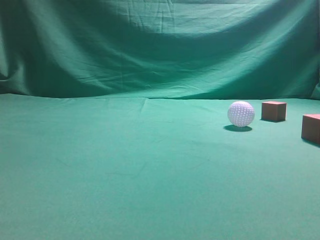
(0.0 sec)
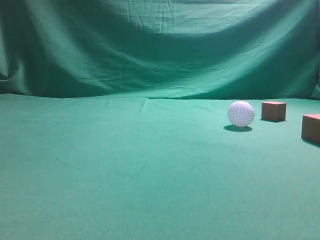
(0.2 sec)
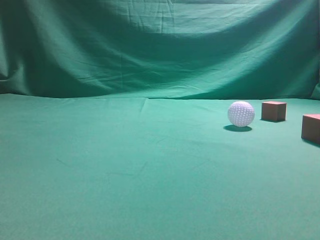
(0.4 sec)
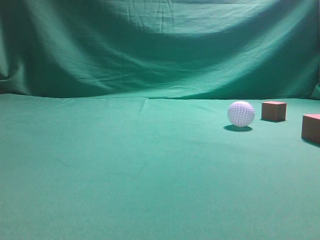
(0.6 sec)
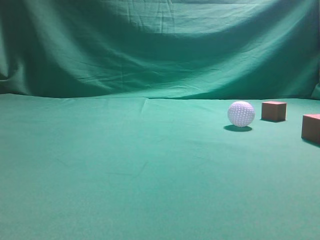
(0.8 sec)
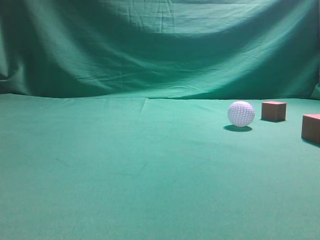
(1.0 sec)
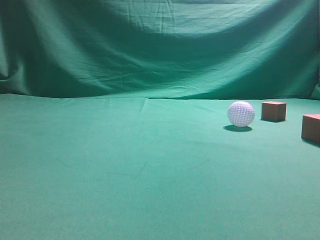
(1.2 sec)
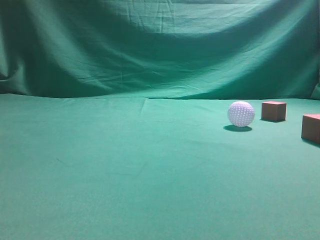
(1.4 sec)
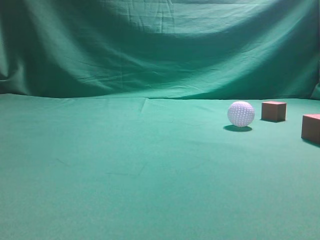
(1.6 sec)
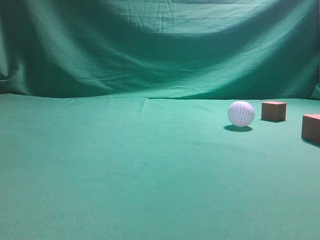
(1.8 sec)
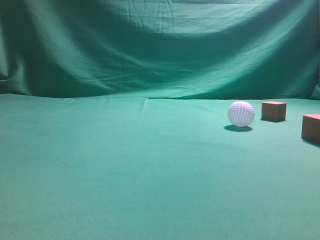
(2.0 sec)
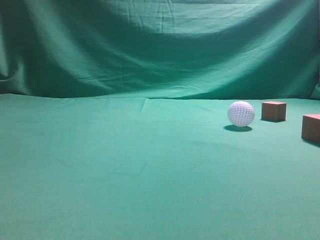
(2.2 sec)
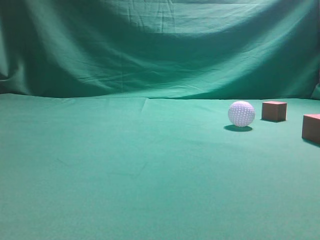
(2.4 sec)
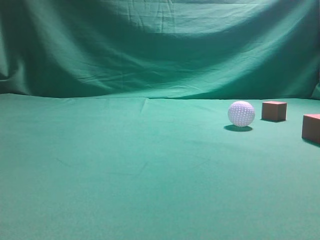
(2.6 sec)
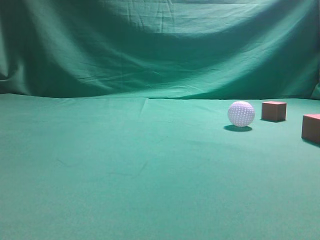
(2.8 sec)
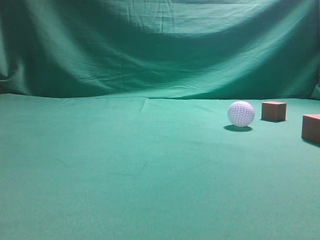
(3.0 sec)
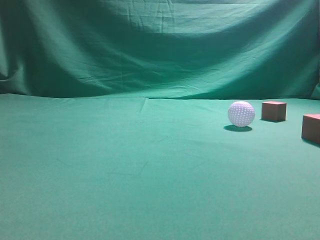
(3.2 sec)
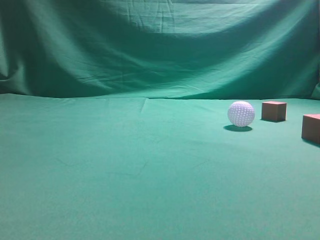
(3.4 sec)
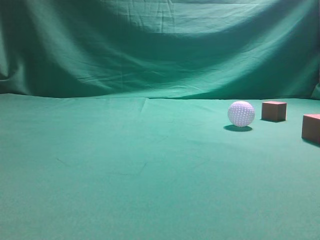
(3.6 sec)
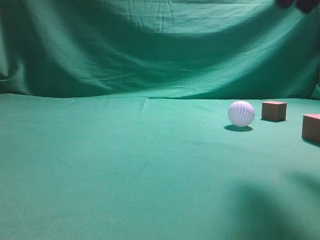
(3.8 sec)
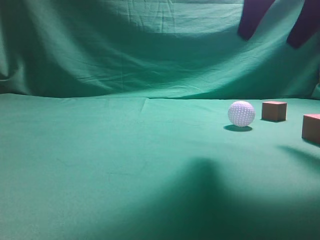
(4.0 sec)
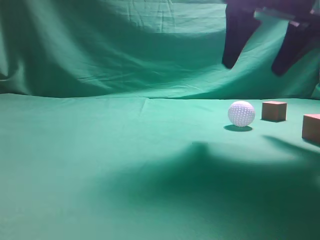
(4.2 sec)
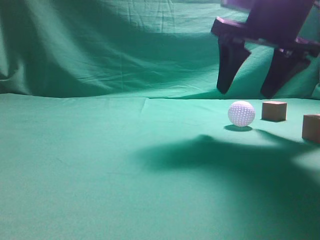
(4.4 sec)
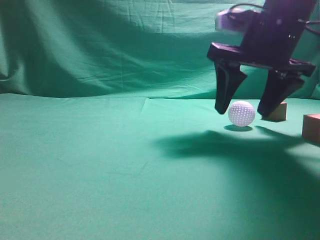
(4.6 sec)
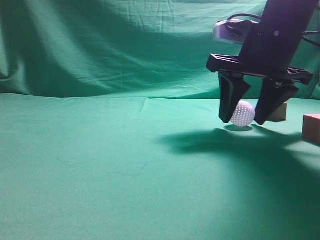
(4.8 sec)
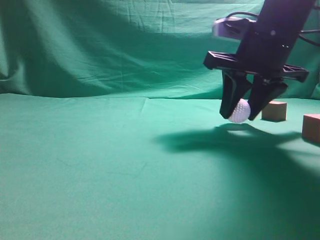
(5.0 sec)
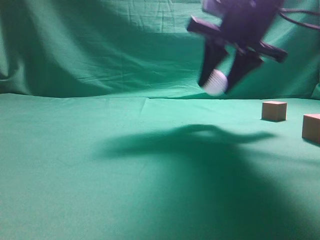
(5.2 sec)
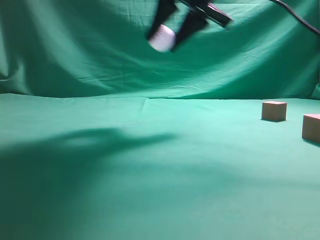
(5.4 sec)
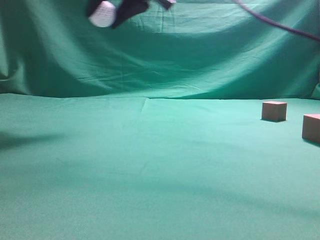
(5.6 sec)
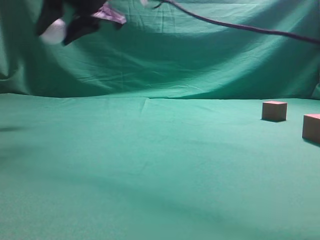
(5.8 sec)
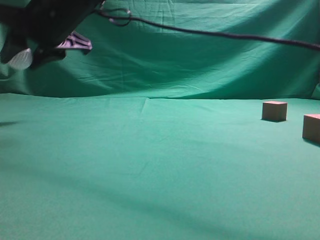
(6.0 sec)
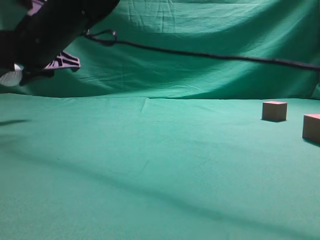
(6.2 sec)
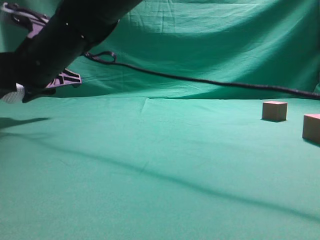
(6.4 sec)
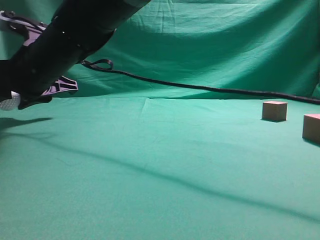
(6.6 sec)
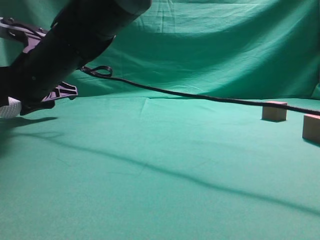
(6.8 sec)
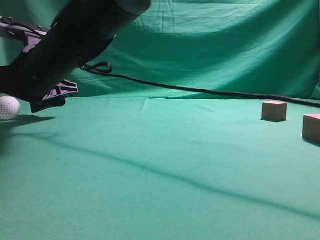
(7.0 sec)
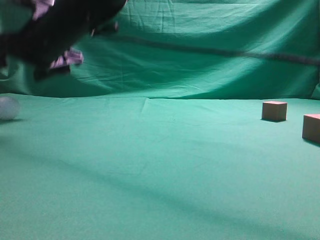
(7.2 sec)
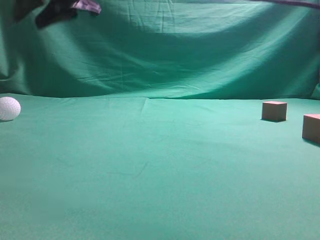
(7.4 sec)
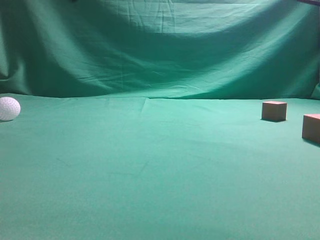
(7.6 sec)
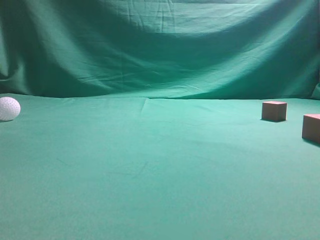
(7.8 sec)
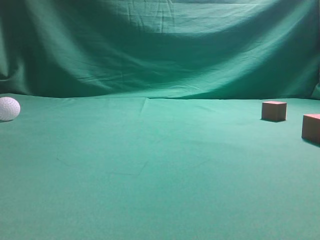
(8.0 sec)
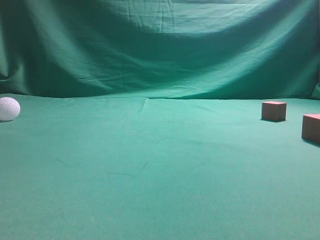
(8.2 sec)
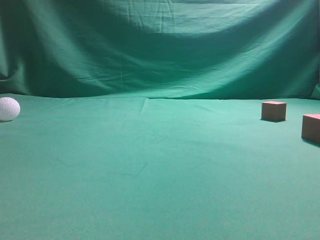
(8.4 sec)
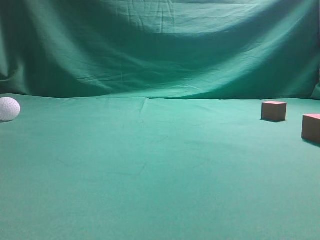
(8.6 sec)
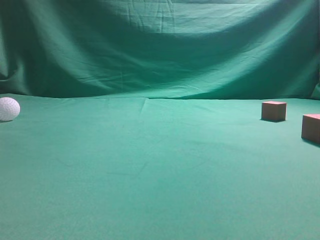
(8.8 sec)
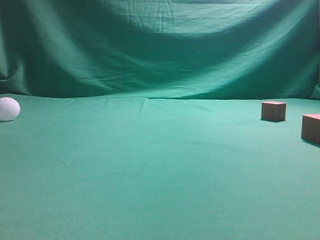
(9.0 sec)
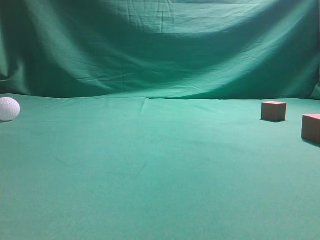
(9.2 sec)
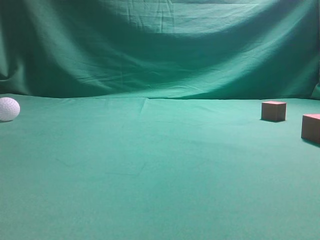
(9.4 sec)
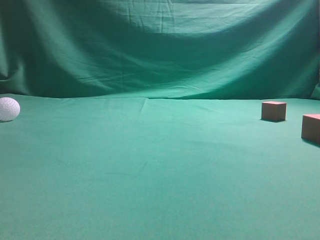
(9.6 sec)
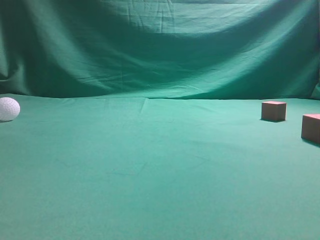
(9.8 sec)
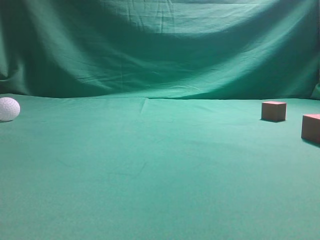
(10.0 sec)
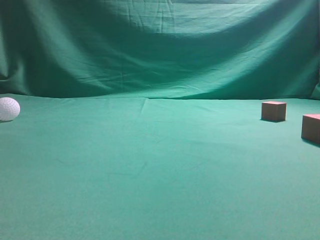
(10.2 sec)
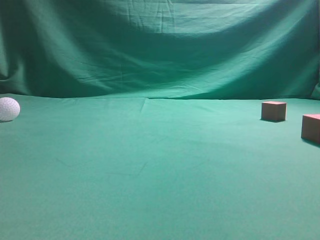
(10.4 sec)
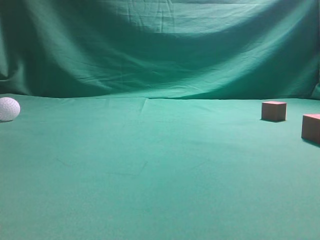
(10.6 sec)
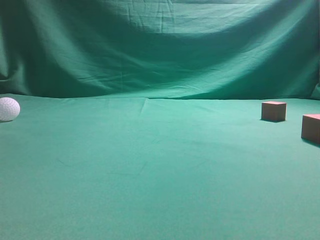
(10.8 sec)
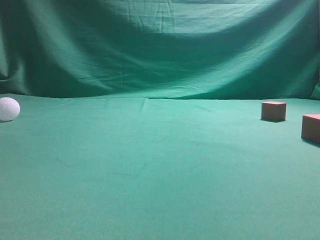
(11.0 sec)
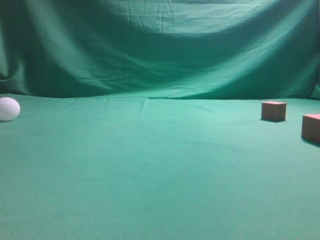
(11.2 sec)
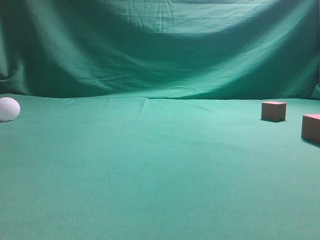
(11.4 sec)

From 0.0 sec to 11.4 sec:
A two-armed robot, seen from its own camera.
Step, from 0.0 sec to 5.2 sec: Grasp the spherical object on the right side.
From 2.8 sec to 4.2 sec: The right gripper heads forward and to the left, covering about 25 cm, and opens.
From 4.2 sec to 5.6 sec: The right gripper heads to the left, covering roughly 25 cm, and closes up.
From 5.6 sec to 7.2 sec: The right gripper reaches approximately 10 cm downward, then returns, and opens and closes again.
From 7.2 sec to 8.6 sec: The right gripper heads to the right, backward and upward, covering about 50 cm, and closes.
